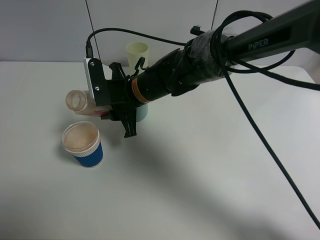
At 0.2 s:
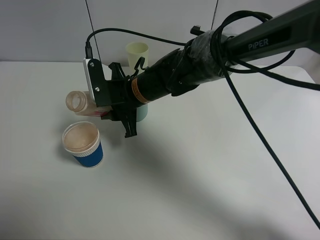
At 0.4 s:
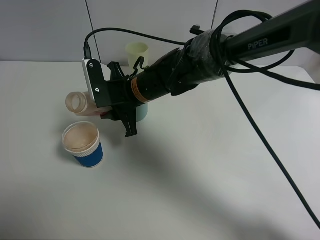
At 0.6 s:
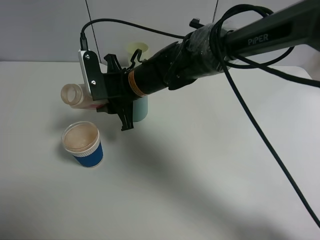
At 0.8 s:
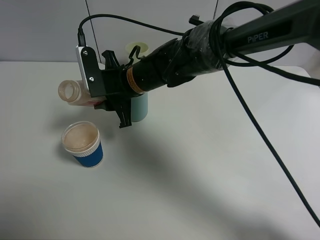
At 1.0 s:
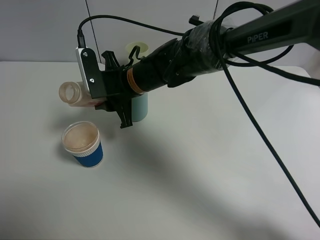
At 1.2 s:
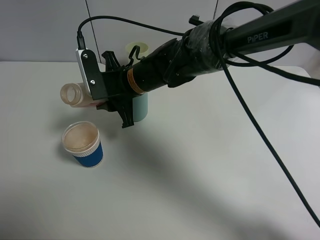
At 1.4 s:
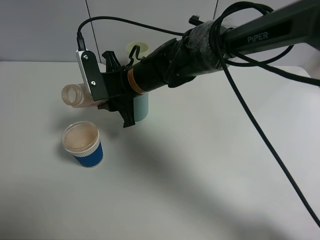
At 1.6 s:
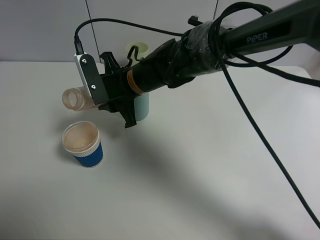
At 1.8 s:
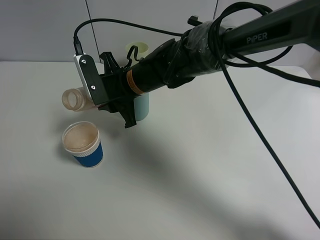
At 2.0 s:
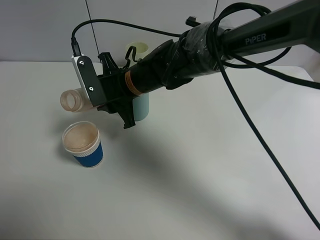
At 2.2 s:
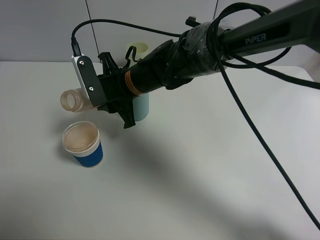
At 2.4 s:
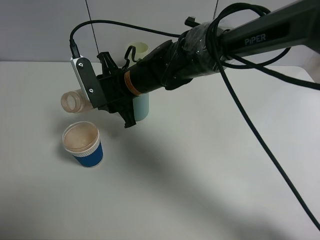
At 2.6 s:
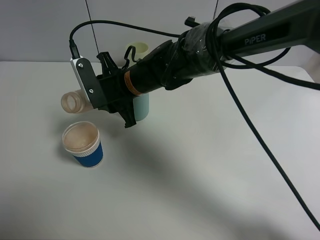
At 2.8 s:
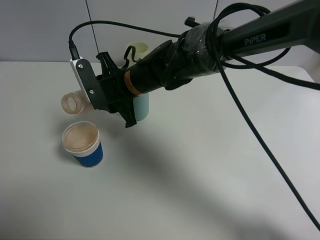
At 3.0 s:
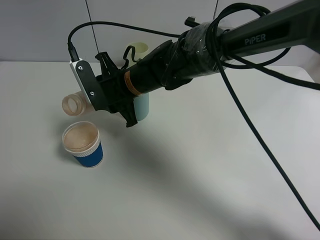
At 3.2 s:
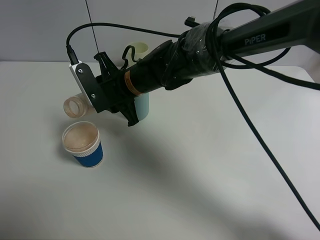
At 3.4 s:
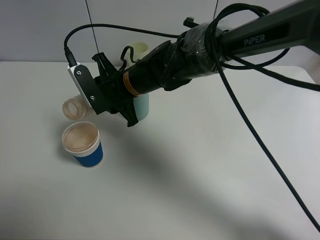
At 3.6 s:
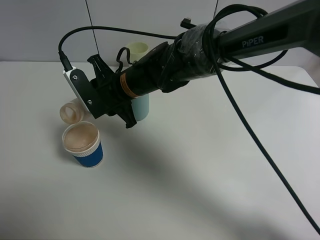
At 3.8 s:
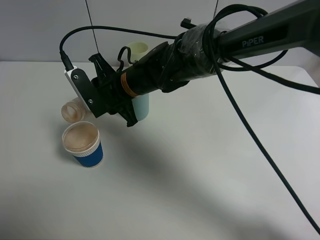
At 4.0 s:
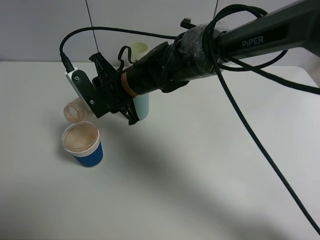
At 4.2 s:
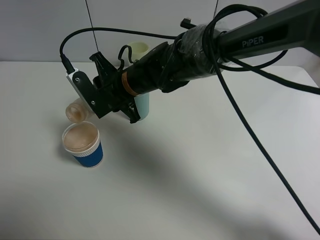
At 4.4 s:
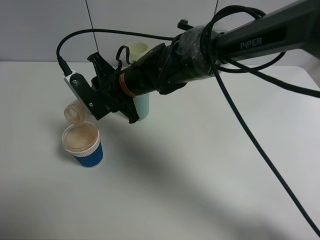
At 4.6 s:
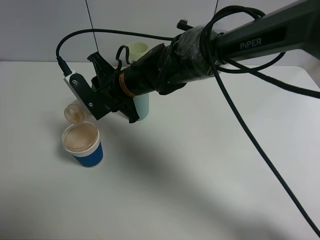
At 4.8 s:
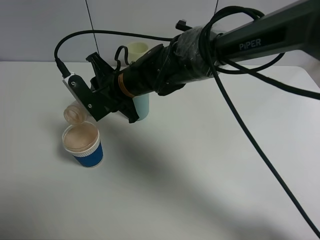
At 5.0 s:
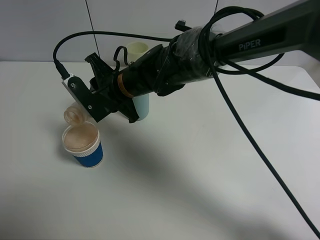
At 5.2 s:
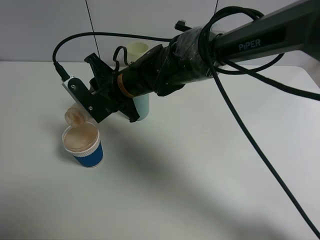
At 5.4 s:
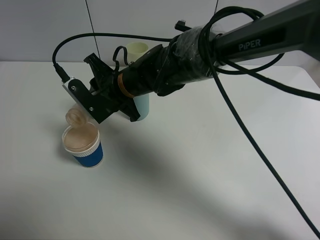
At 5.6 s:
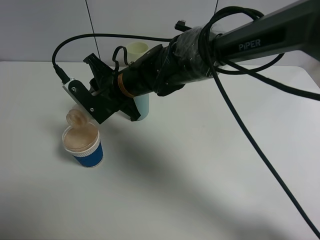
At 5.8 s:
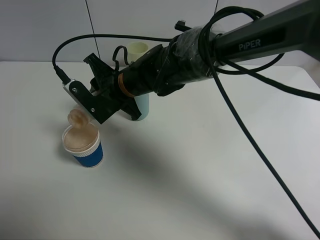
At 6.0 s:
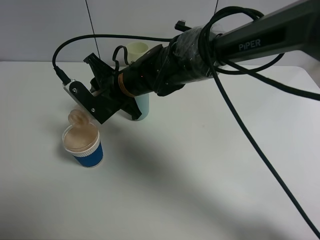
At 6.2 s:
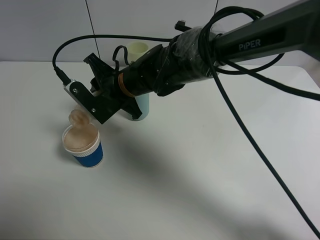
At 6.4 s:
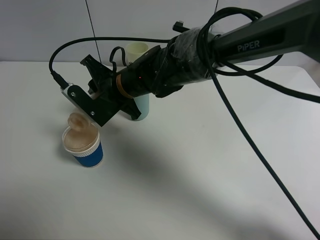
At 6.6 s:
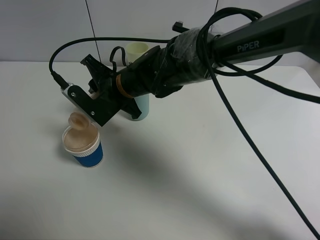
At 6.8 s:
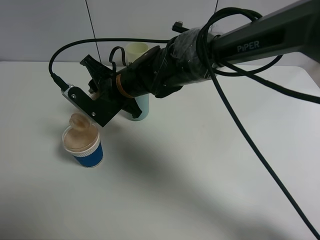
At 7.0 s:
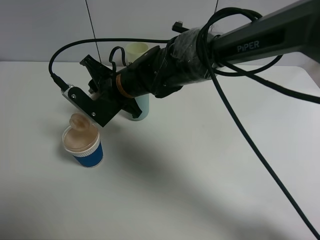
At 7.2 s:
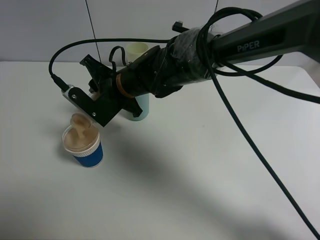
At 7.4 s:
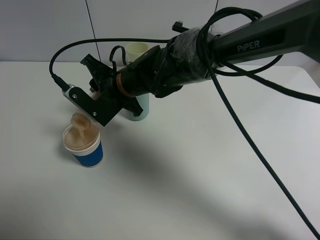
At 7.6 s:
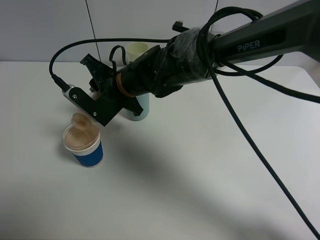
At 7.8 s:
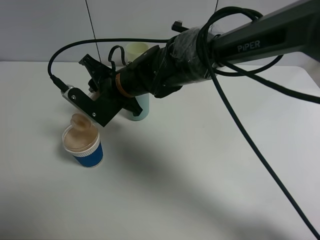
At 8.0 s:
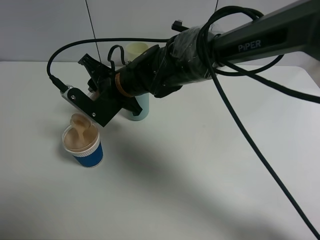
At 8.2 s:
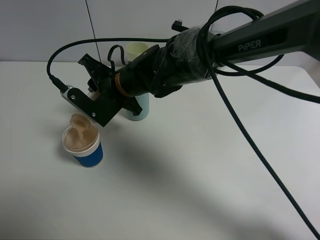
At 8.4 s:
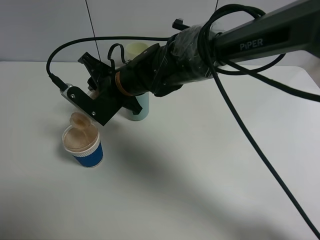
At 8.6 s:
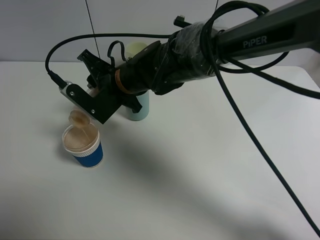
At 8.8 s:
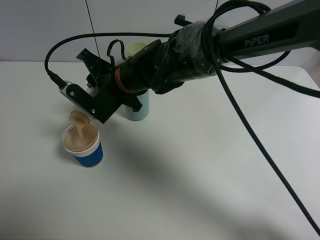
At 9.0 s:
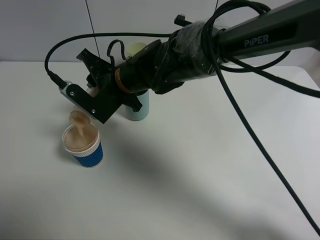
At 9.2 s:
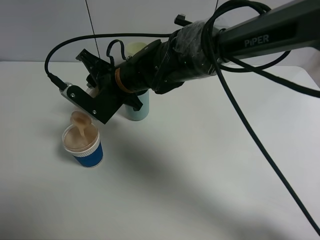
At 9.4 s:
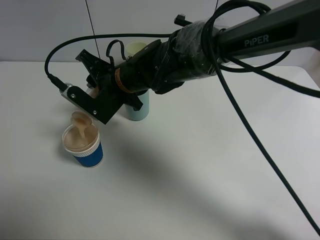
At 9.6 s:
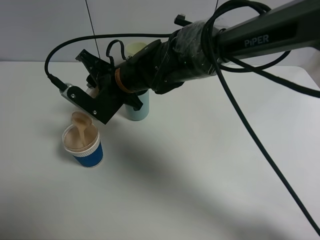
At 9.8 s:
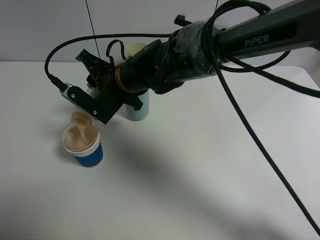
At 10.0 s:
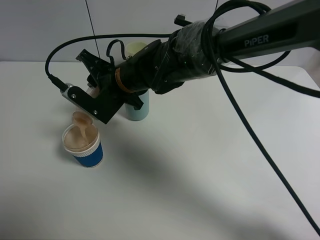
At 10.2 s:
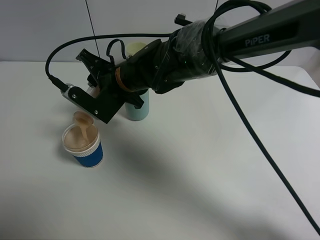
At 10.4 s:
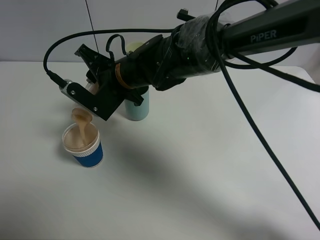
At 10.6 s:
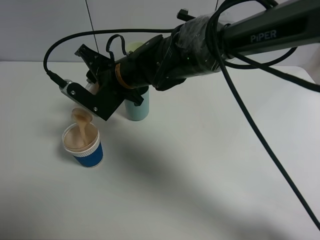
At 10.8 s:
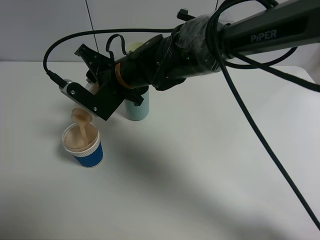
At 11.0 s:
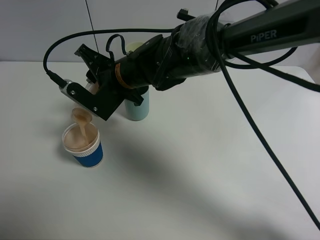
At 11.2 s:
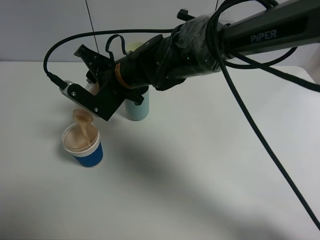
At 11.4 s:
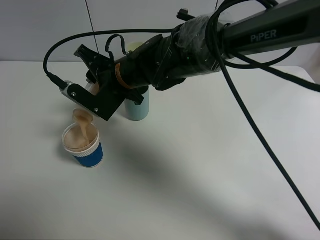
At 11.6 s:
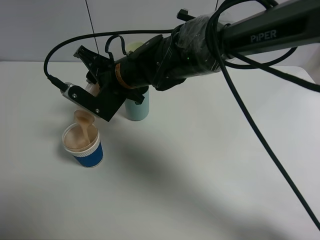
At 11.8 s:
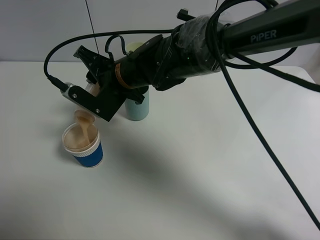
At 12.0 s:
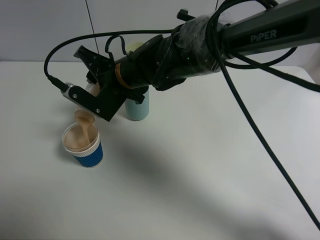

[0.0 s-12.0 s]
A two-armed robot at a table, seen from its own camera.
Task of the whole recording: use a clamp to hold the bottle of the drink, pour the beverage into a random cup, then clamp the cup containing the drink and pour the drink into another random cup.
0.0 to 3.0 s: The grippers make only small movements.
3.0 to 4.4 s: There are only small adjustments of the grippers.
4.4 to 7.6 s: There are only small adjustments of the grippers.
7.6 to 9.0 s: The two grippers keep their place.
9.0 to 10.4 s: Both grippers stay about where they are.
10.4 to 12.0 s: Neither gripper changes place.

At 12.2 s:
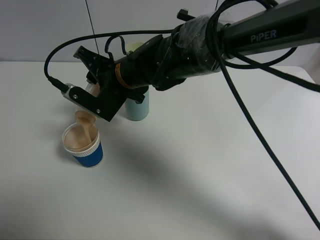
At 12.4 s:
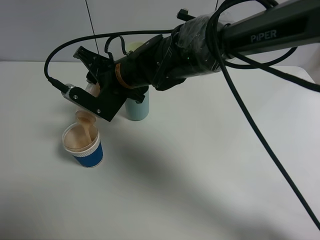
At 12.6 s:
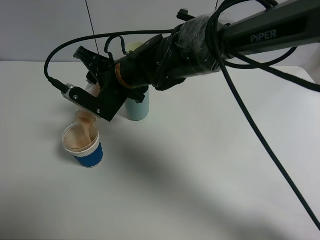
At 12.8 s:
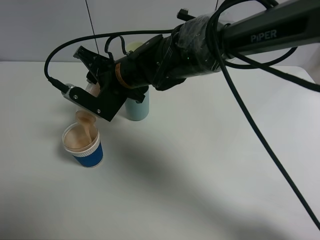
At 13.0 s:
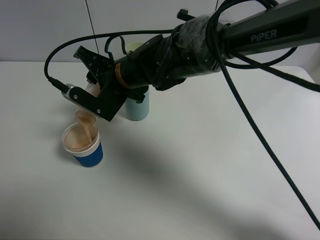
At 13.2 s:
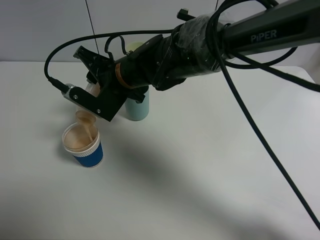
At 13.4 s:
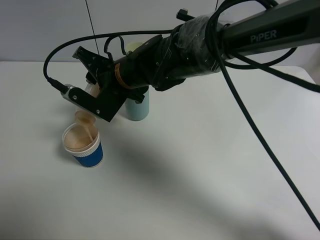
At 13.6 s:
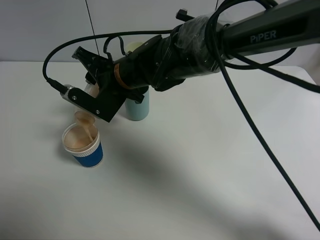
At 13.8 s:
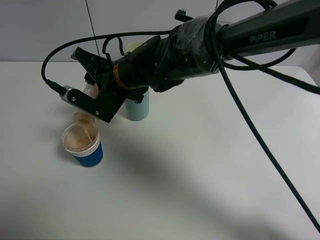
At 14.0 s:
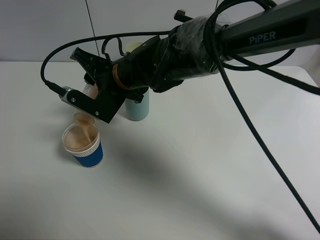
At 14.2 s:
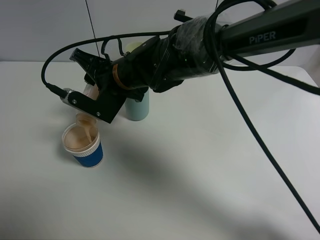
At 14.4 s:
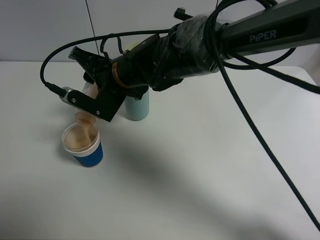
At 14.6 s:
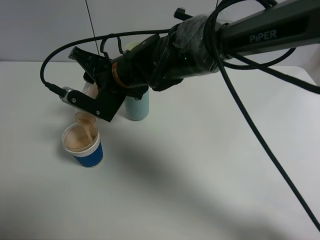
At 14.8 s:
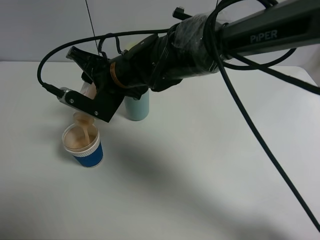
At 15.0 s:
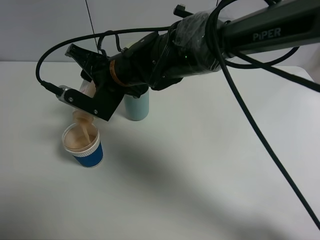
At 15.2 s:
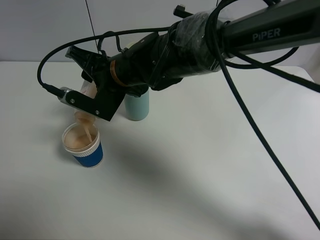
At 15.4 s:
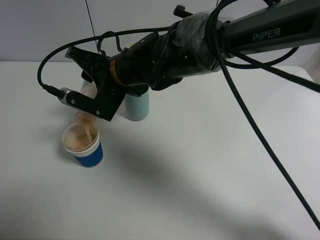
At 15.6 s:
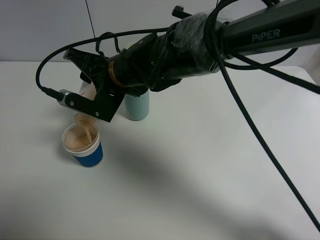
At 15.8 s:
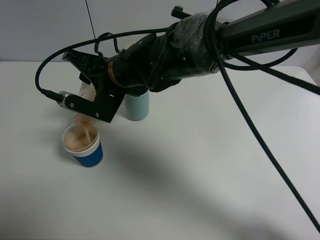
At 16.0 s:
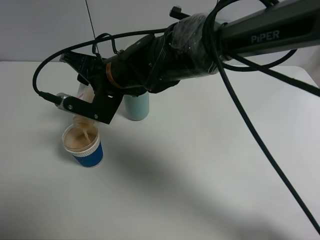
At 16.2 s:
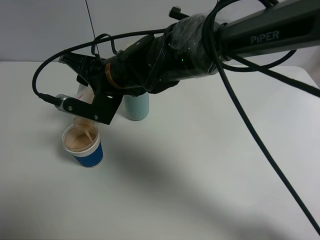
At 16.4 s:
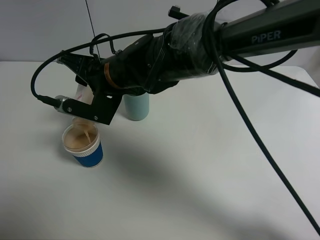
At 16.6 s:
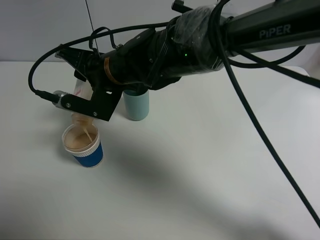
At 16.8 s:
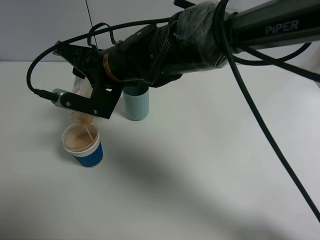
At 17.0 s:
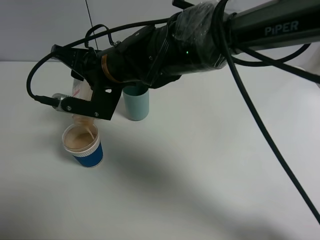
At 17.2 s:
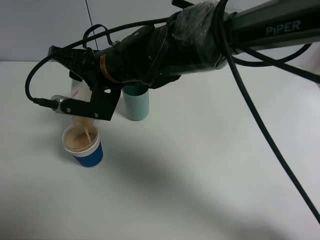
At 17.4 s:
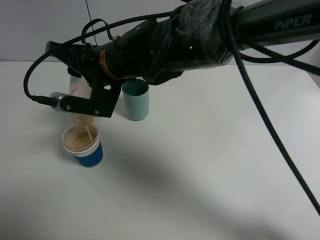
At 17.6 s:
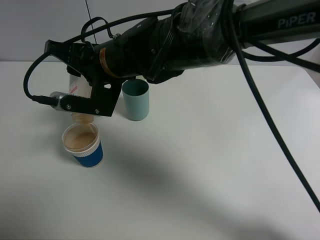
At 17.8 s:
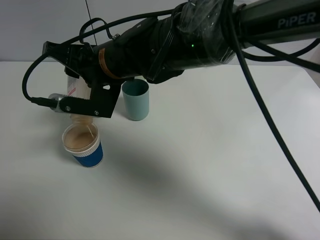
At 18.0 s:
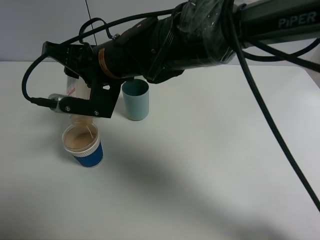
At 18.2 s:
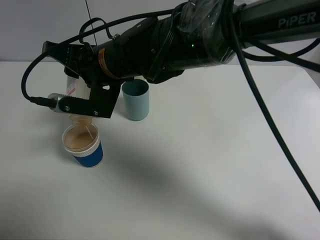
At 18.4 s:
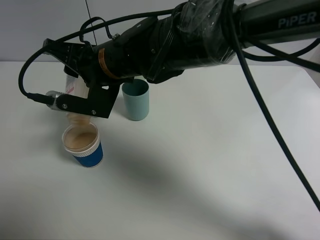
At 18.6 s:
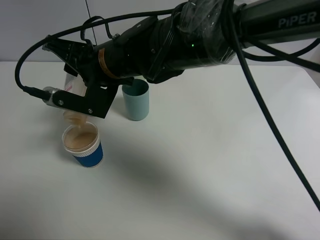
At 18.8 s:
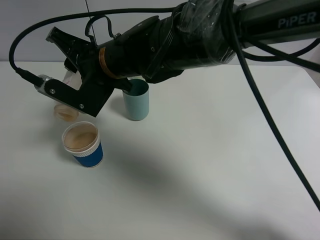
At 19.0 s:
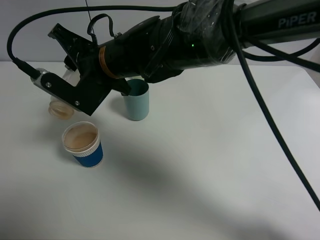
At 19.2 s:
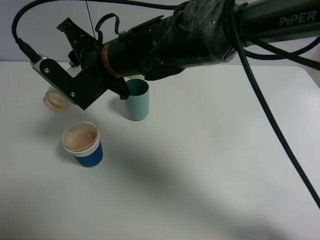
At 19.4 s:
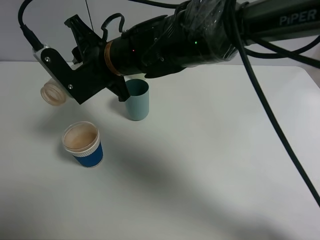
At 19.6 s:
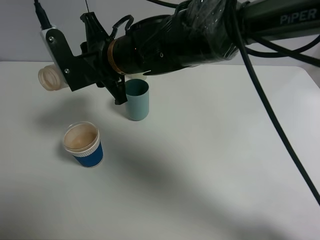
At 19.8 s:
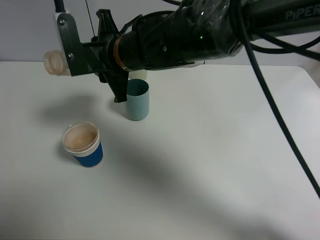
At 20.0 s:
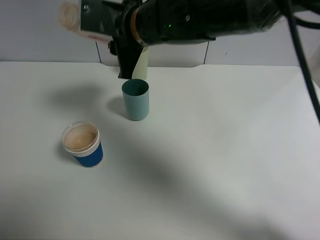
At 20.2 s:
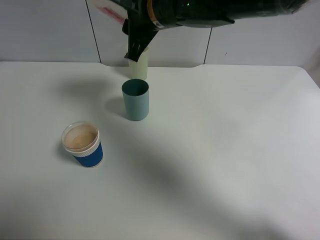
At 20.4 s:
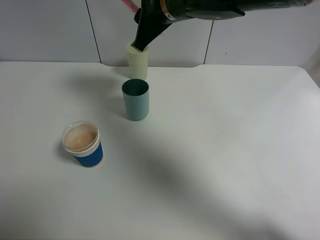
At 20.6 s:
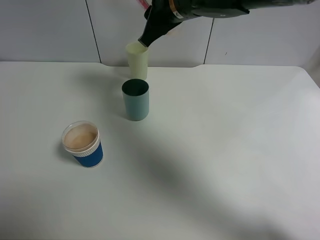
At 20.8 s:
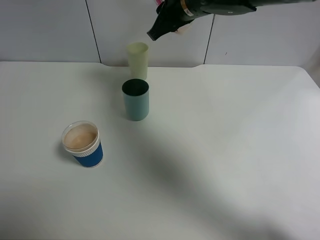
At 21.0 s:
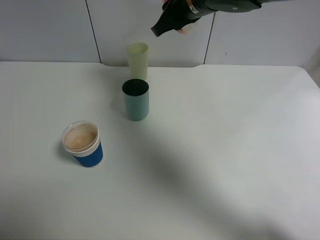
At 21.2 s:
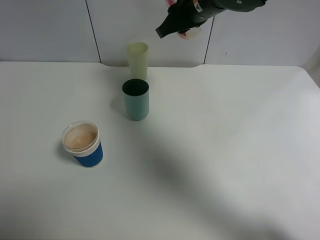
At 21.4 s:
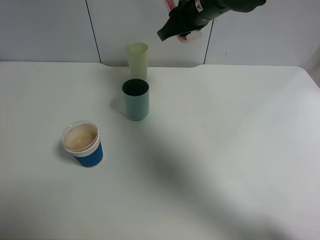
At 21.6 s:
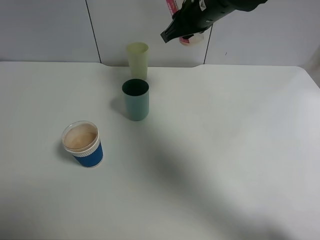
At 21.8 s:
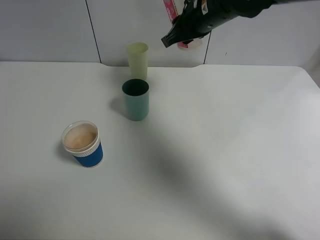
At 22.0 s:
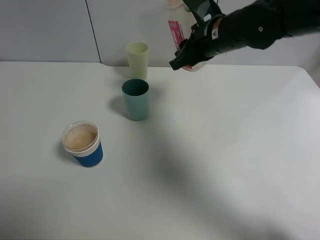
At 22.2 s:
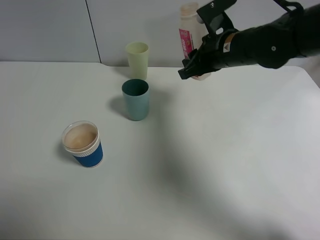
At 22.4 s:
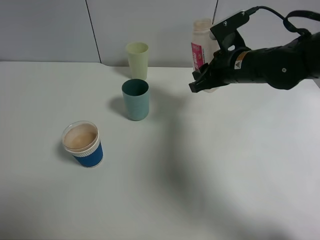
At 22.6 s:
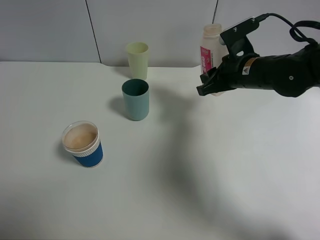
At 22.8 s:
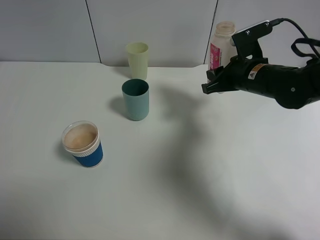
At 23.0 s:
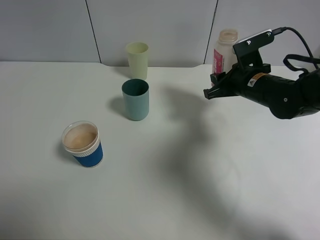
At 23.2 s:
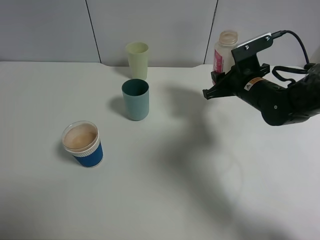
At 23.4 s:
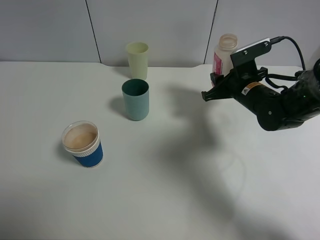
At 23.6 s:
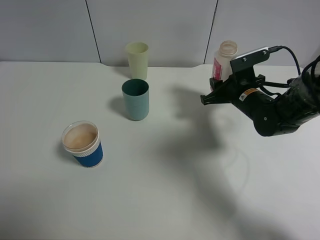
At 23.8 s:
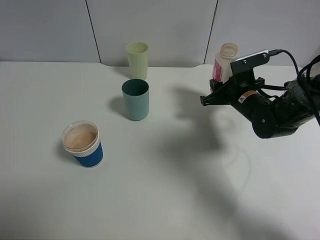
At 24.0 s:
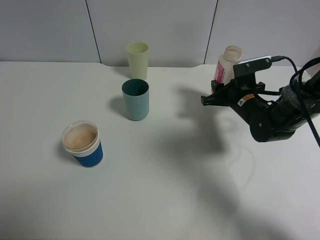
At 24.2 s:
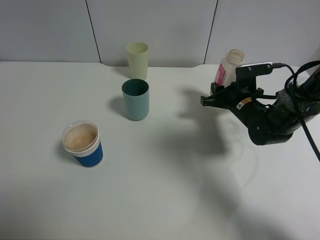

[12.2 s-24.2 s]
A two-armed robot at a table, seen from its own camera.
Task of the whole recording: use a clamp to hold the bottle of the drink, pour the beverage into a random cup, then clamp the cup containing the drink and pour the drink into another random cup.
Step, 12.2 to 19.4 s: Pour the drink into the paper cup with right gripper.
12.2 to 13.8 s: Both grippers stay put.
13.8 to 16.6 s: The grippers make only small movements.
16.6 to 18.2 s: The grippers stay close to where they were, moving slightly.
19.8 to 21.2 s: The right gripper moves to the right, upward and forward, approximately 15 cm.
21.2 to 22.6 s: The right gripper shifts about 15 cm downward and to the right.
22.6 to 24.2 s: The right gripper is displaced downward by roughly 10 cm.
